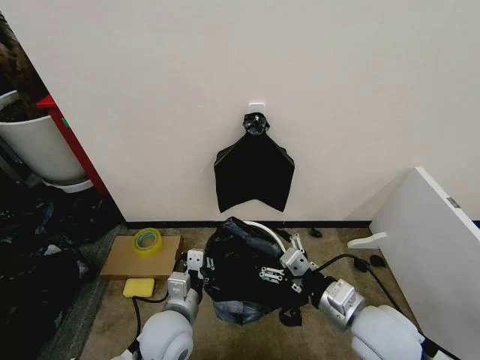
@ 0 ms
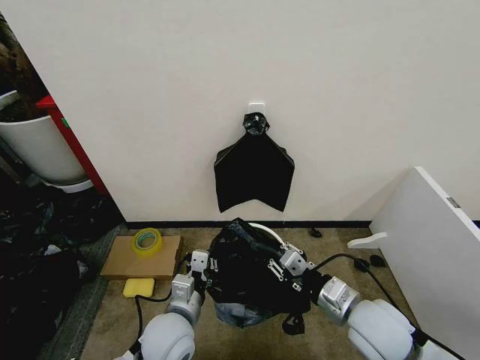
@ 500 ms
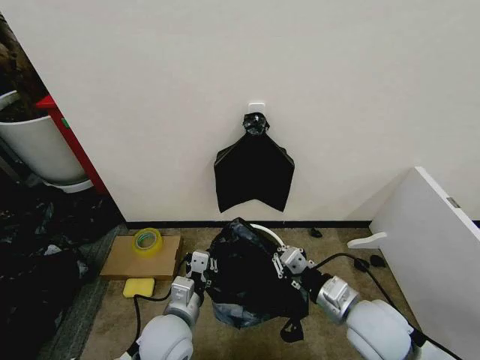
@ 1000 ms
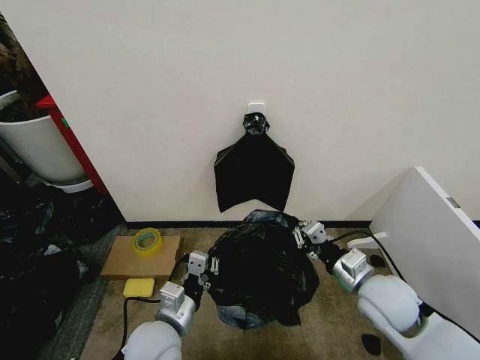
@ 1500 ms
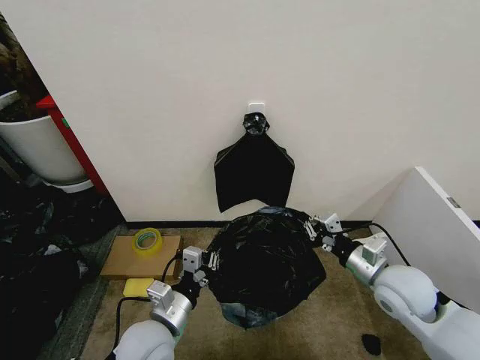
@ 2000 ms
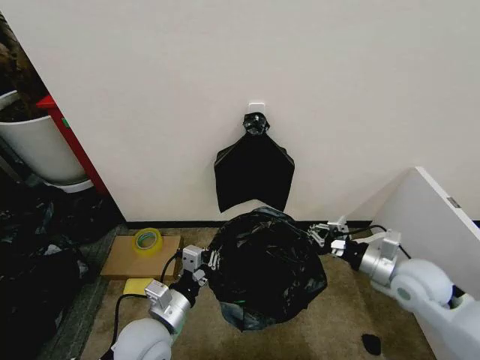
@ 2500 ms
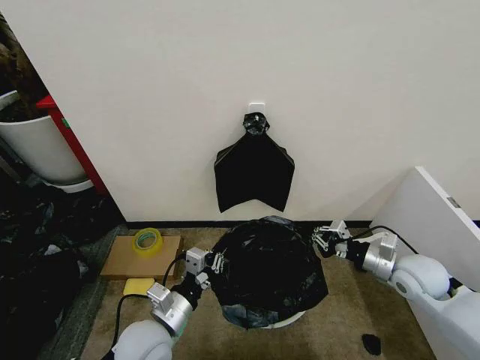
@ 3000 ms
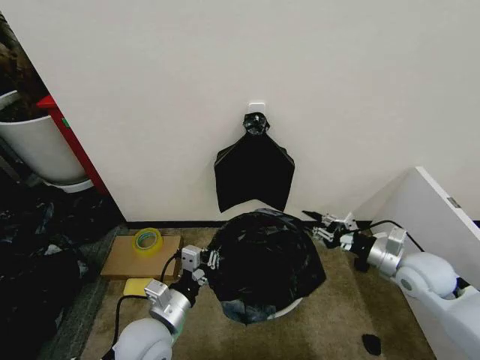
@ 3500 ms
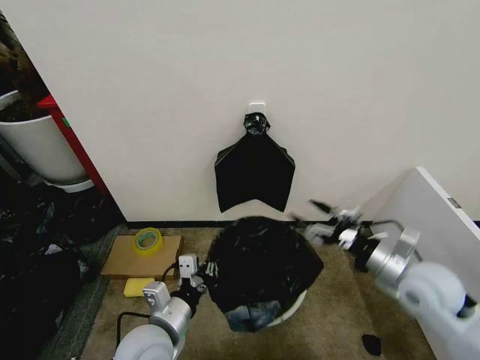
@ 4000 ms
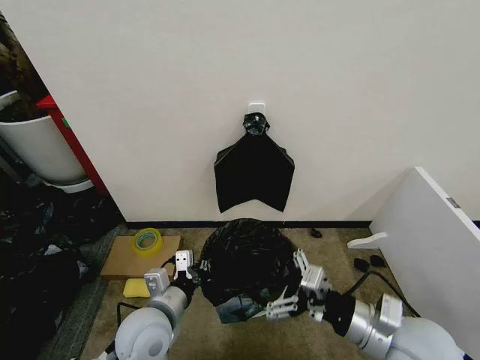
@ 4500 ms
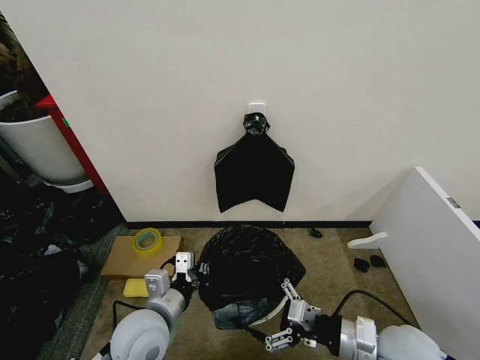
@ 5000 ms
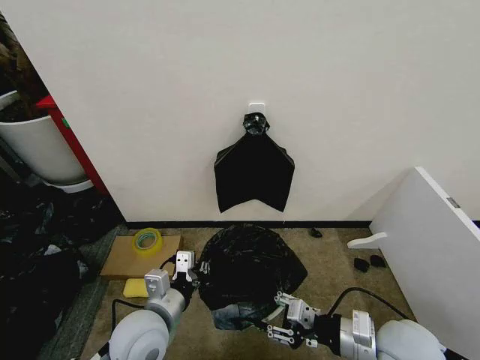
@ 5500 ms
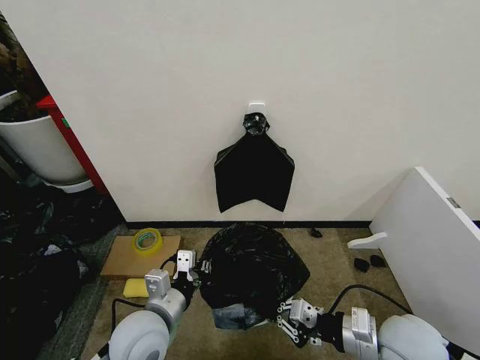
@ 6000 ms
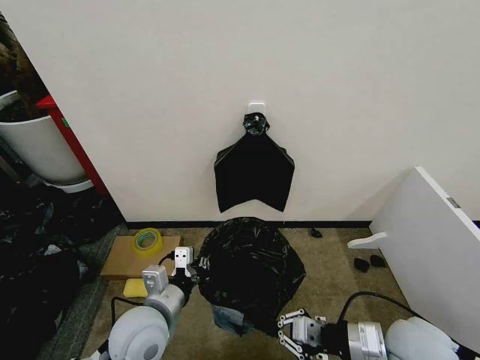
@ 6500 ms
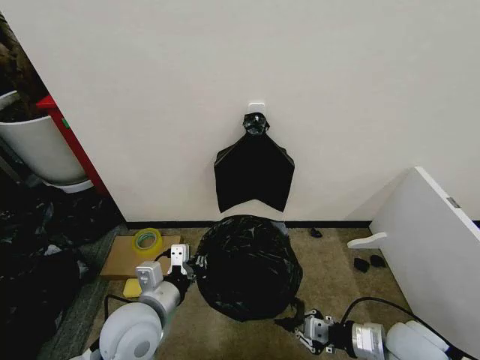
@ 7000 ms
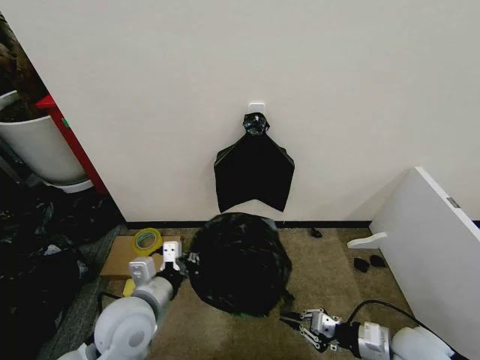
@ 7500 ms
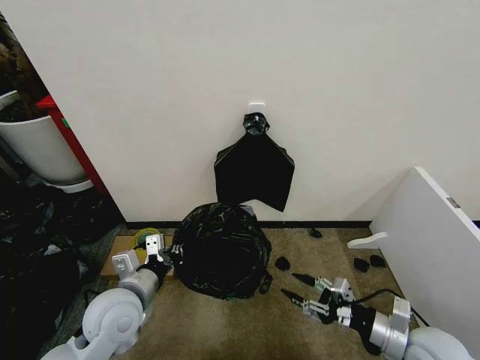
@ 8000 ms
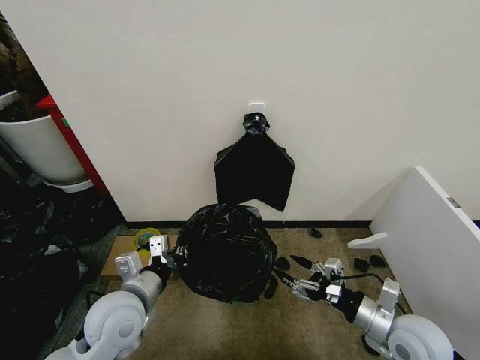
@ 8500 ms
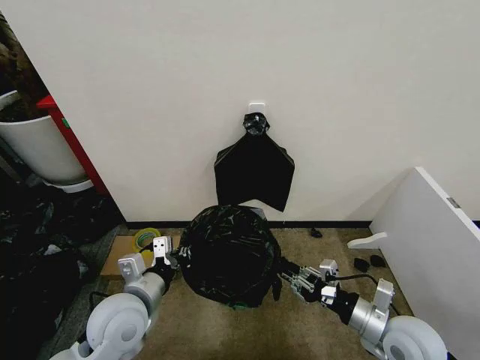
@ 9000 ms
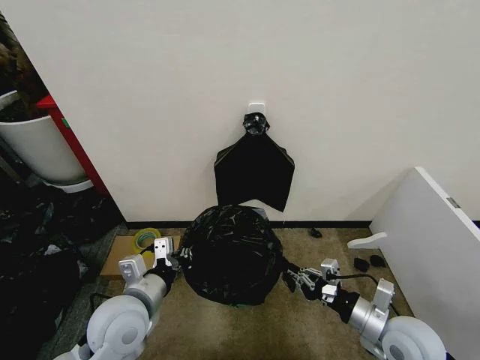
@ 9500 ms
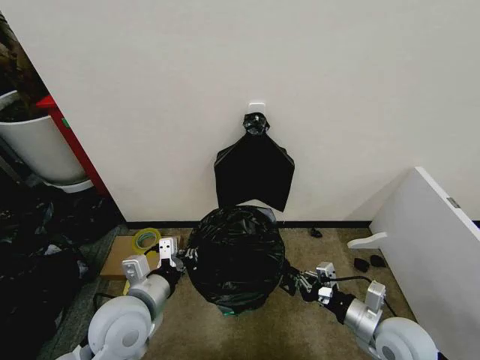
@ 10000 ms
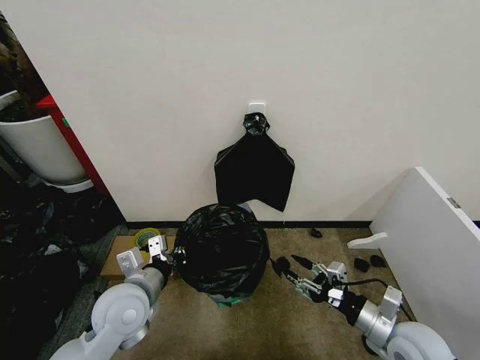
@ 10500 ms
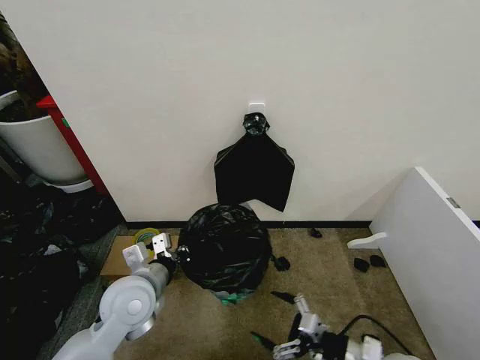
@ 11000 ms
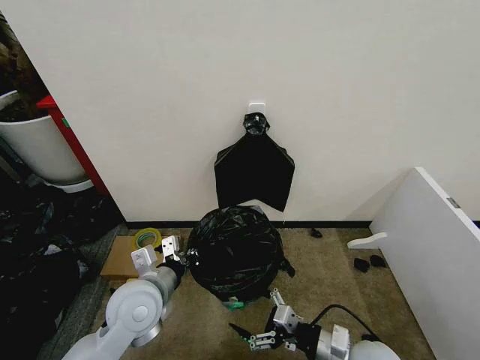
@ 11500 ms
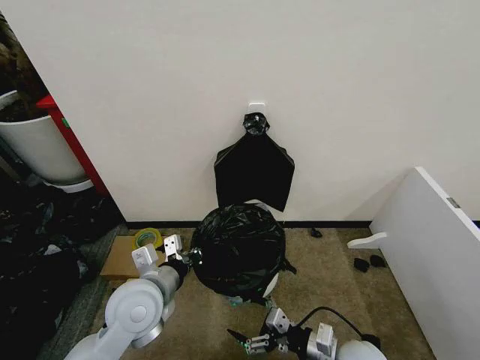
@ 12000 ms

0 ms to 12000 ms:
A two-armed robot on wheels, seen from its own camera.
Task of the whole recording: Place the garbage bag over the trash bin.
0 ms to 2000 ms: The right gripper travels to the right and forward by roughly 10 cm, and closes up.
2000 ms to 4000 ms: The right gripper opens its fingers.
4000 ms to 6000 ms: The right gripper goes approximately 10 cm backward and to the left, and closes up.
6000 ms to 8000 ms: The right gripper goes approximately 5 cm to the right, and opens up. Meanwhile the left gripper goes roughly 5 cm to the left.
8000 ms to 10000 ms: The right gripper closes.
10000 ms to 12000 ms: The right gripper goes approximately 10 cm to the left and downward, and opens its fingers.

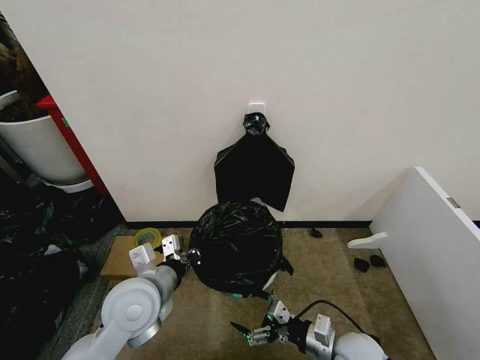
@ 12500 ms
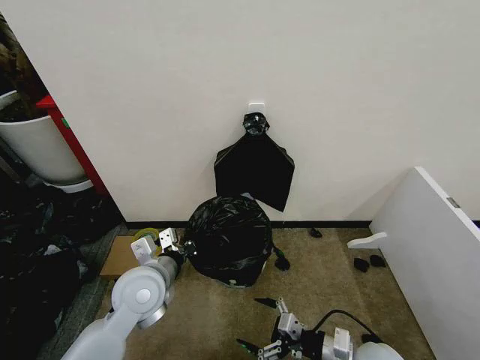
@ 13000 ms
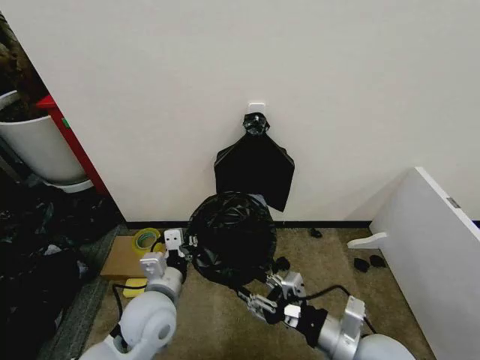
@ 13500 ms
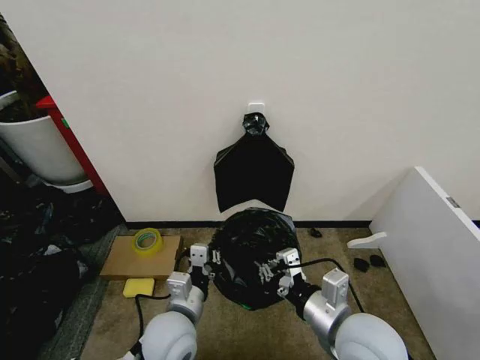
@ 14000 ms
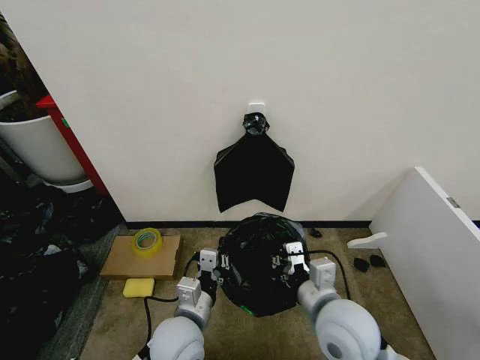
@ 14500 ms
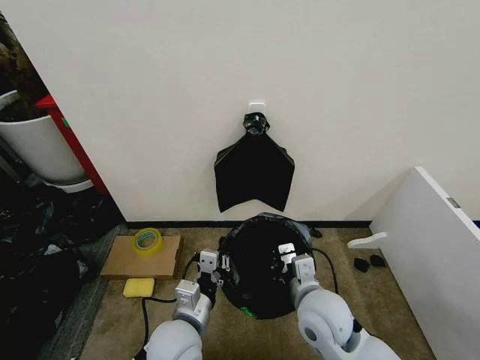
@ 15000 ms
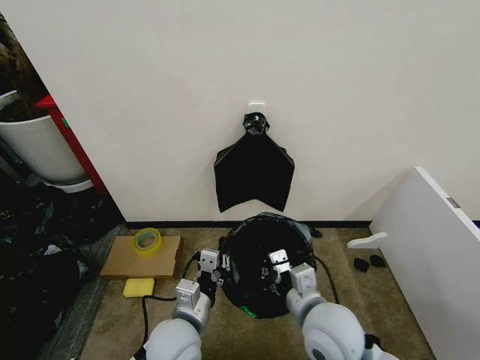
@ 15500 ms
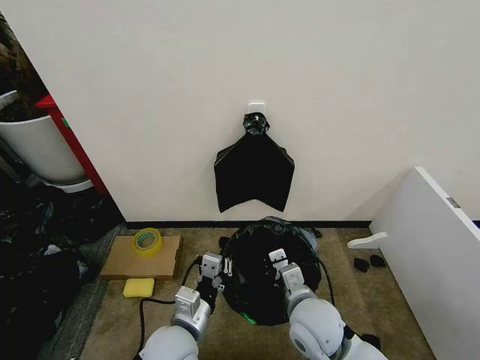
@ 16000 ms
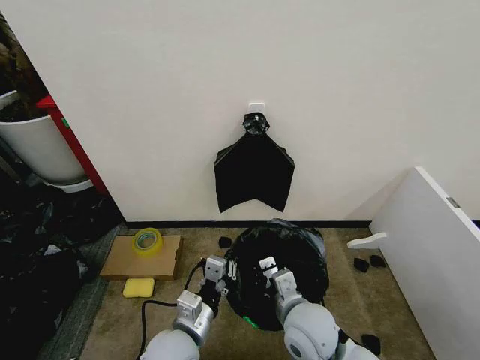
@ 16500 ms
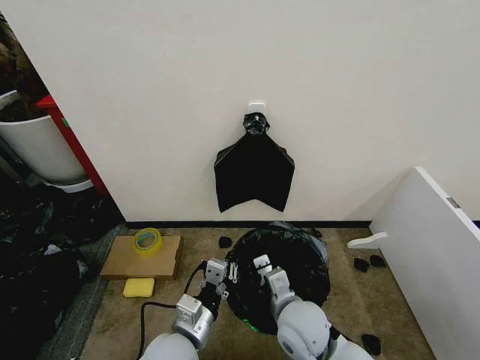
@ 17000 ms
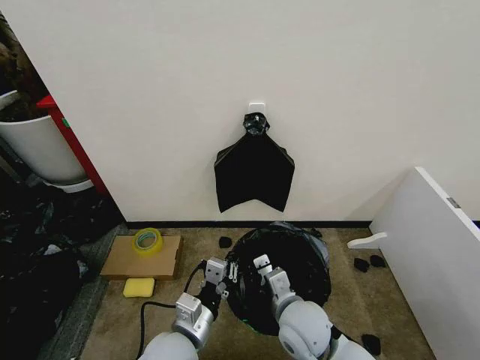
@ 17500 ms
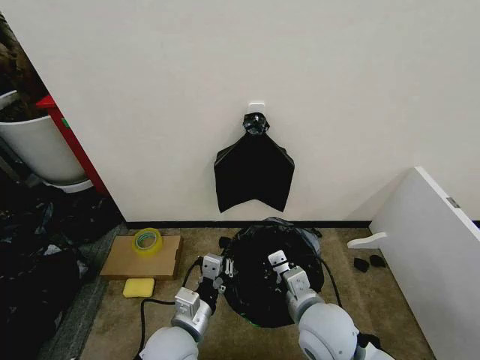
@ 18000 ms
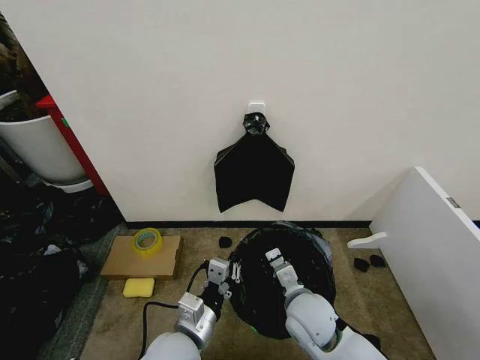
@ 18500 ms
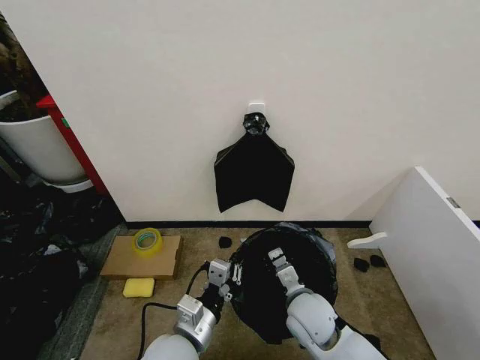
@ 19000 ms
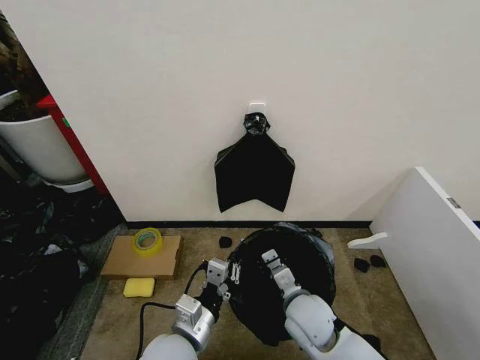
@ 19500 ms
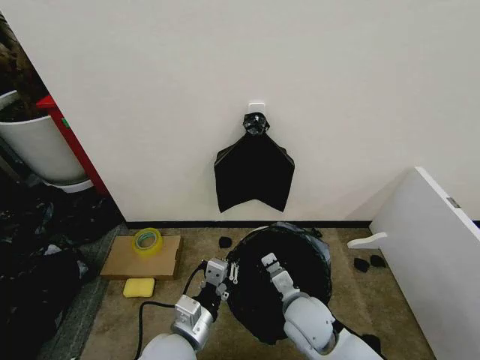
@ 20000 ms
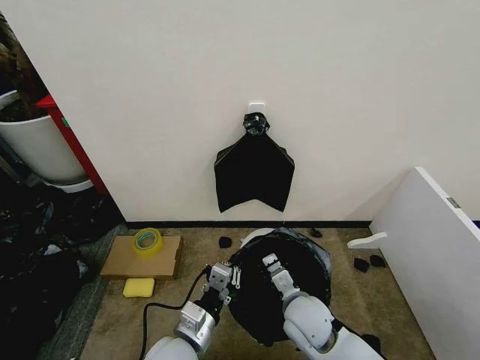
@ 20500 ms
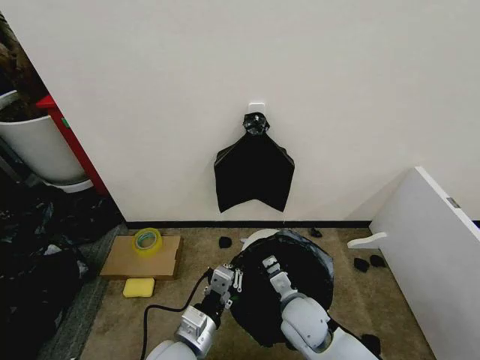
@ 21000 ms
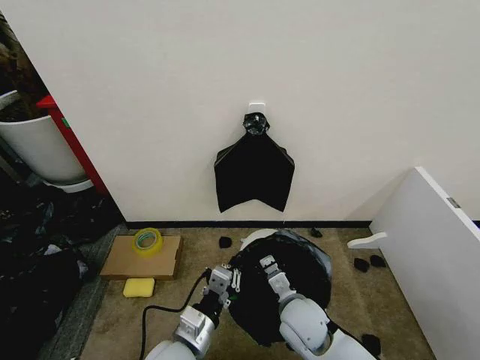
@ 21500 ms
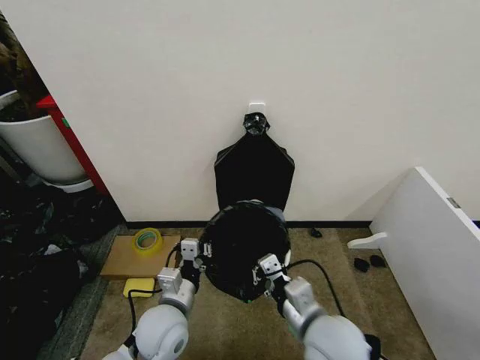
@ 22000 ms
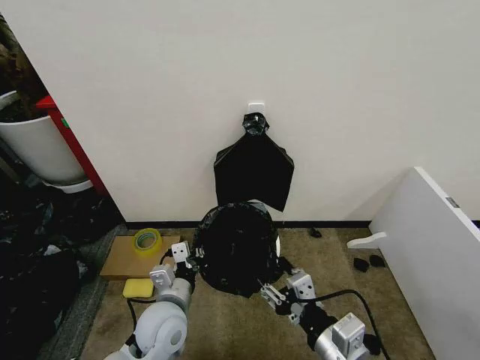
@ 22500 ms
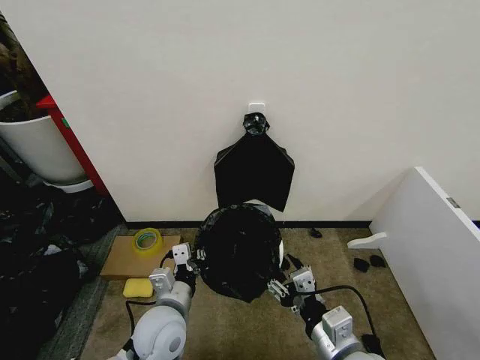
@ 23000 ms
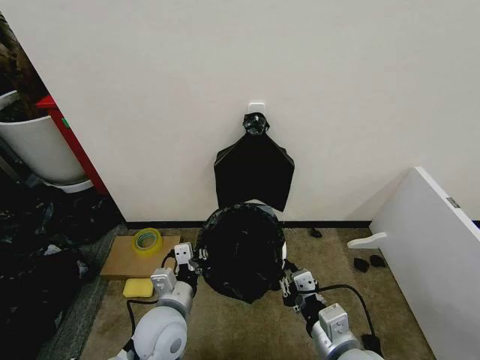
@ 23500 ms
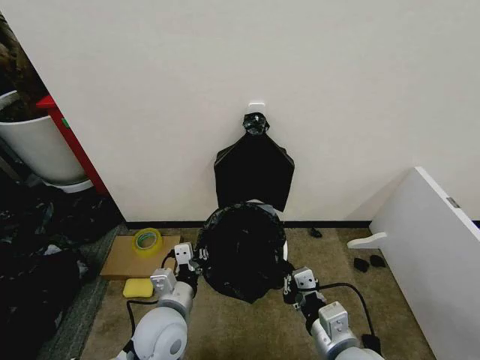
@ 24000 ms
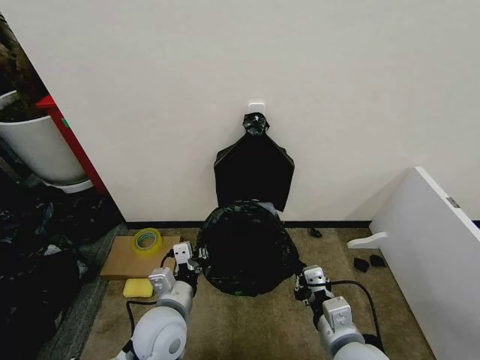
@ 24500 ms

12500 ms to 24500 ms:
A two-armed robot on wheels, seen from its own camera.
Task of the whole recording: Place the garbage bag over the trash bin.
12500 ms to 14500 ms: The right gripper is displaced upward and to the left by about 15 cm, and closes its fingers, while the left gripper heads downward and to the right, covering approximately 10 cm.
14500 ms to 16500 ms: The right gripper is displaced downward by some 5 cm.
16500 ms to 20500 ms: There are only small adjustments of the grippers.
20500 ms to 22500 ms: The right gripper heads backward, upward and to the right, covering some 15 cm, and opens up. Meanwhile the left gripper is displaced forward by about 5 cm.
22500 ms to 24500 ms: The right gripper shifts by roughly 5 cm, and closes.

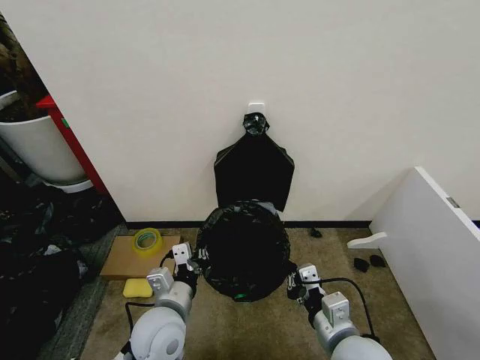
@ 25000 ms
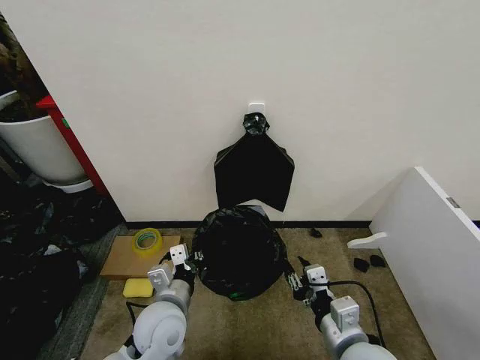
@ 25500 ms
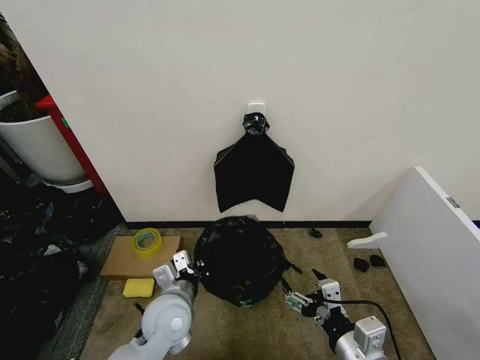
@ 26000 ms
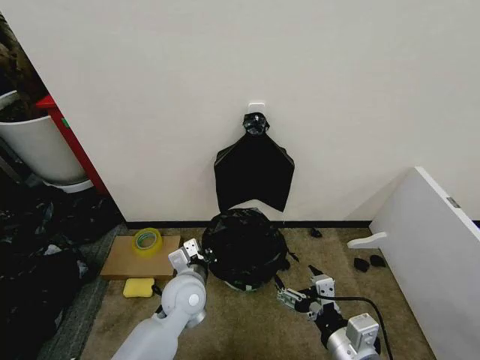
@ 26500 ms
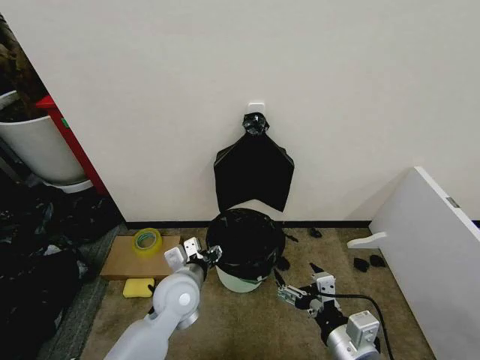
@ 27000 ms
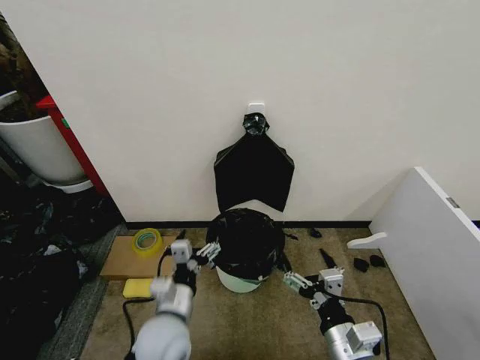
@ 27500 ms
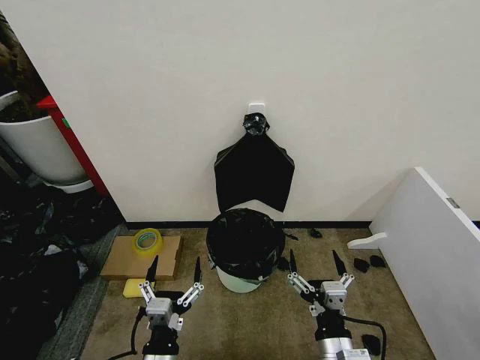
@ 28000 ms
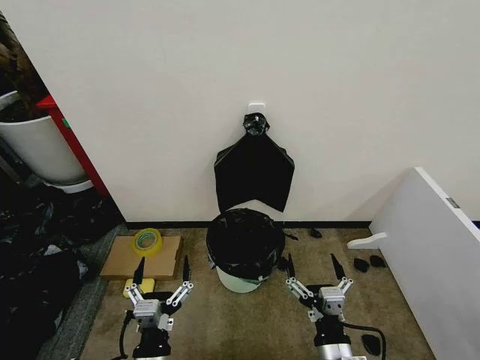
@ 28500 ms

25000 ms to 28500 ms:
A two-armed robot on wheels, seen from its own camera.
Task of the whole recording: Place the garbage bag over the trash bin.
25000 ms to 27000 ms: The left gripper travels forward by about 5 cm, and opens its fingers, while the right gripper opens up.
27000 ms to 28500 ms: The left gripper goes roughly 20 cm backward, and opens its fingers; the right gripper shifts roughly 5 cm downward.
